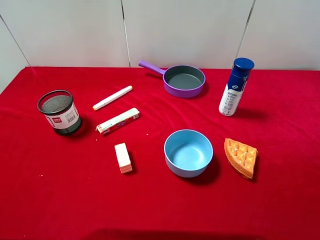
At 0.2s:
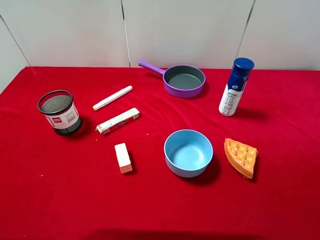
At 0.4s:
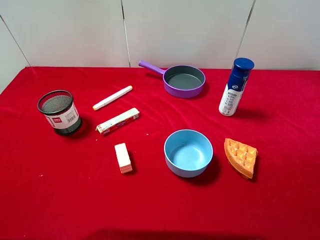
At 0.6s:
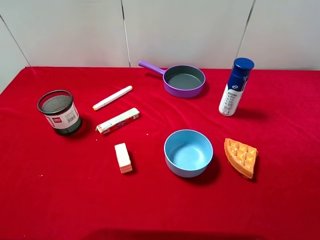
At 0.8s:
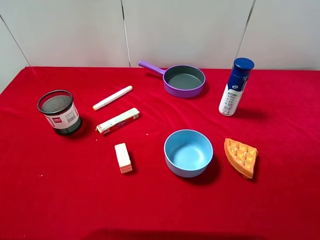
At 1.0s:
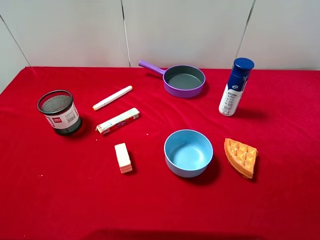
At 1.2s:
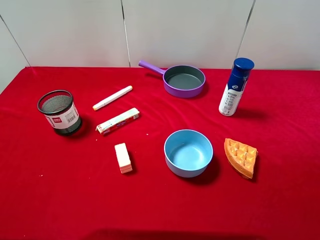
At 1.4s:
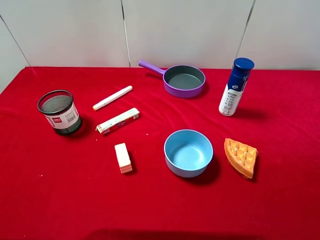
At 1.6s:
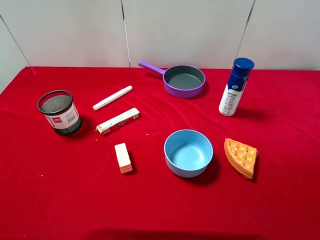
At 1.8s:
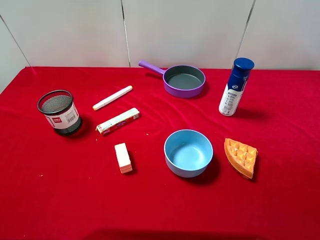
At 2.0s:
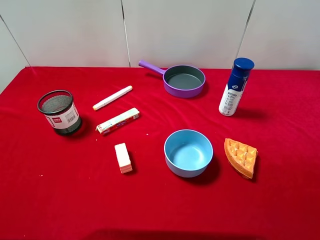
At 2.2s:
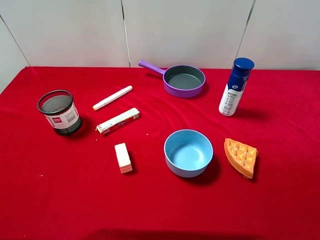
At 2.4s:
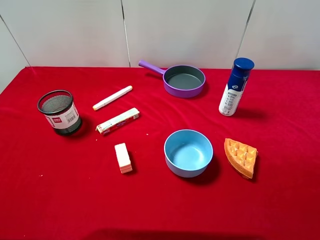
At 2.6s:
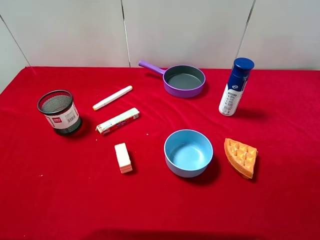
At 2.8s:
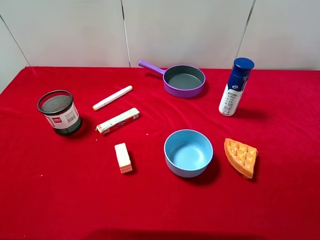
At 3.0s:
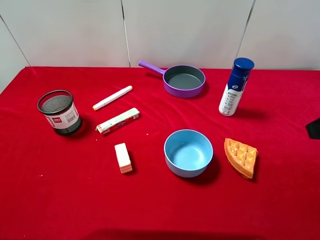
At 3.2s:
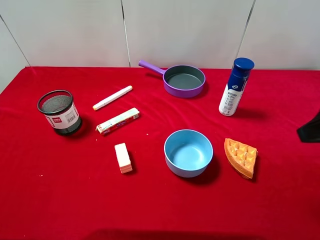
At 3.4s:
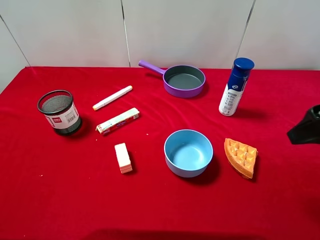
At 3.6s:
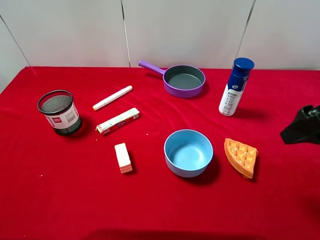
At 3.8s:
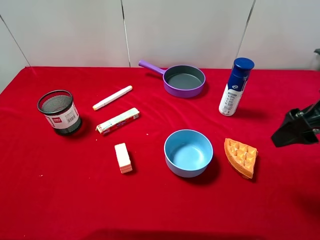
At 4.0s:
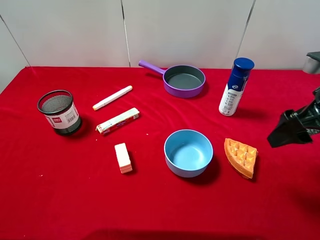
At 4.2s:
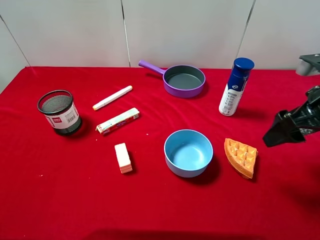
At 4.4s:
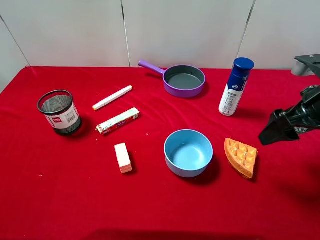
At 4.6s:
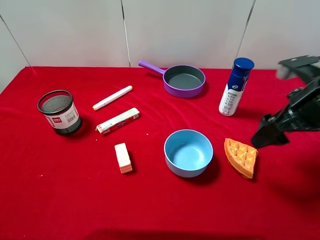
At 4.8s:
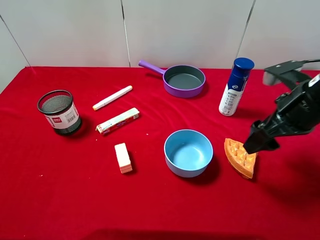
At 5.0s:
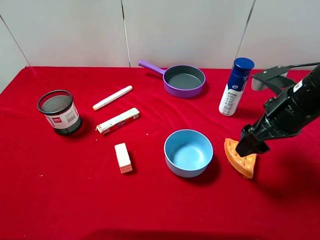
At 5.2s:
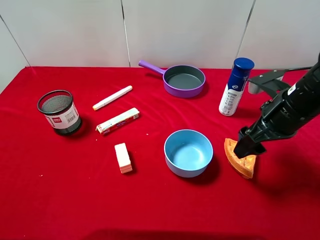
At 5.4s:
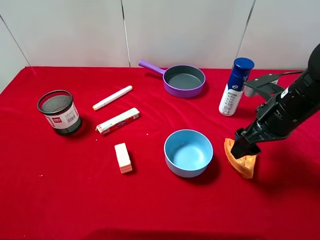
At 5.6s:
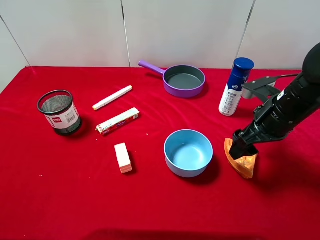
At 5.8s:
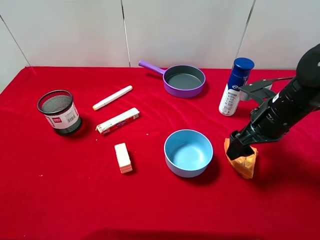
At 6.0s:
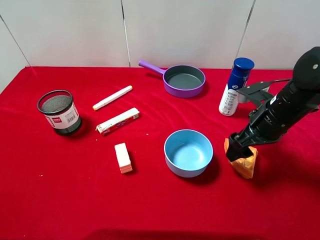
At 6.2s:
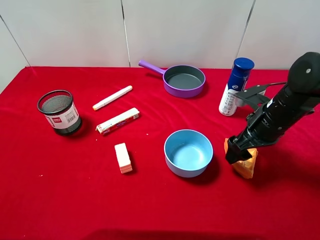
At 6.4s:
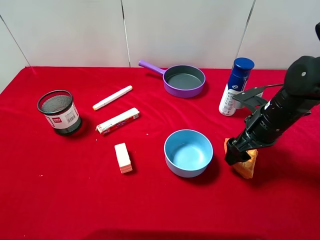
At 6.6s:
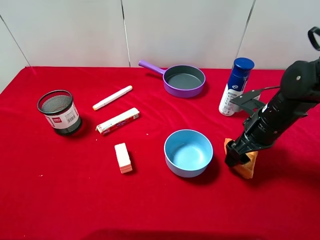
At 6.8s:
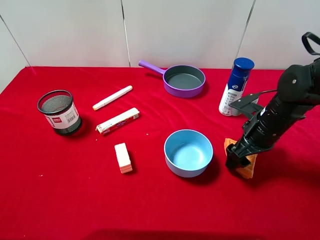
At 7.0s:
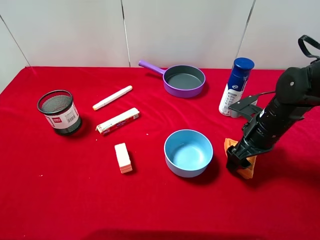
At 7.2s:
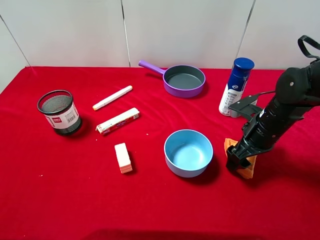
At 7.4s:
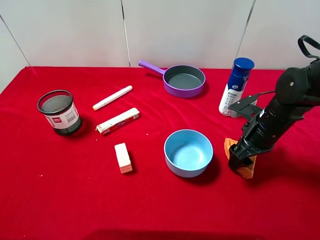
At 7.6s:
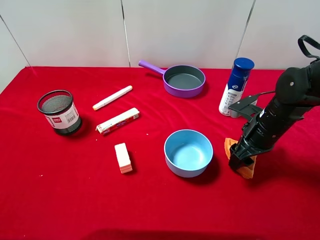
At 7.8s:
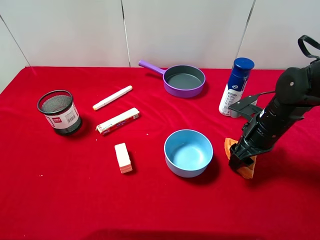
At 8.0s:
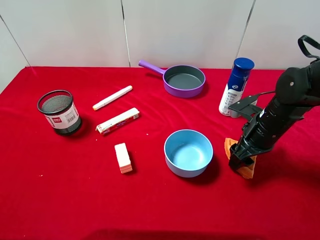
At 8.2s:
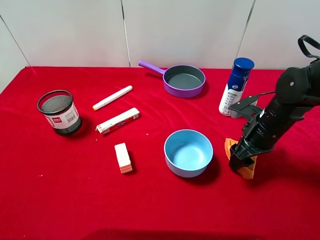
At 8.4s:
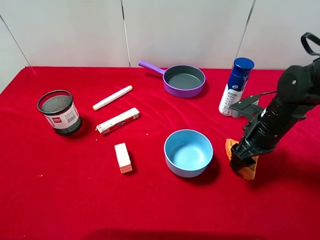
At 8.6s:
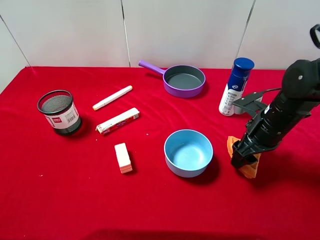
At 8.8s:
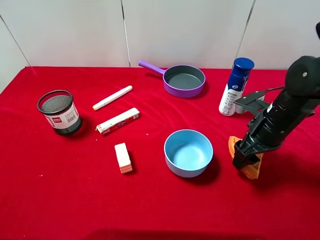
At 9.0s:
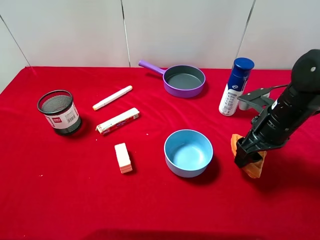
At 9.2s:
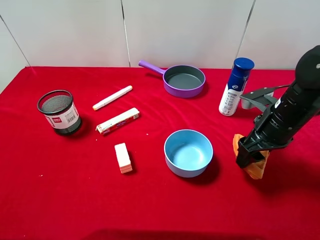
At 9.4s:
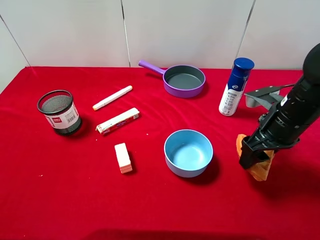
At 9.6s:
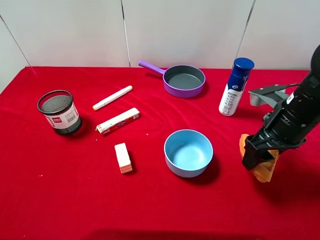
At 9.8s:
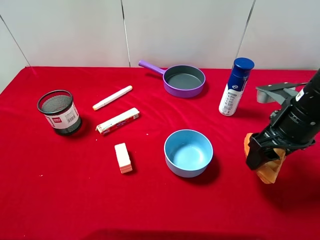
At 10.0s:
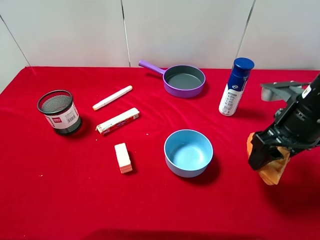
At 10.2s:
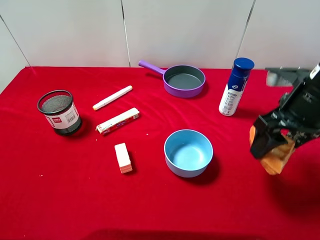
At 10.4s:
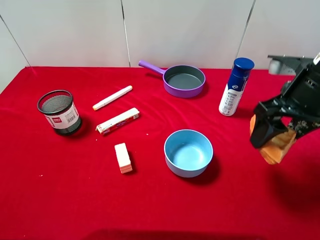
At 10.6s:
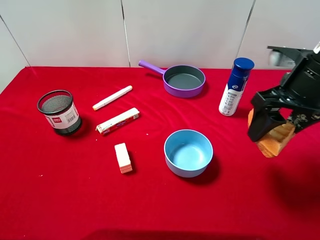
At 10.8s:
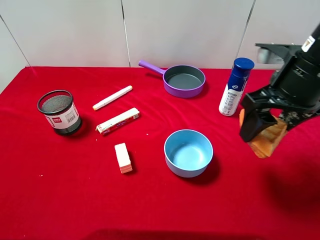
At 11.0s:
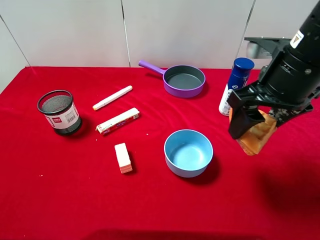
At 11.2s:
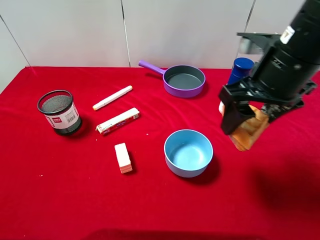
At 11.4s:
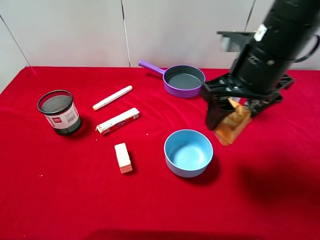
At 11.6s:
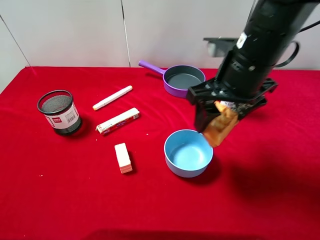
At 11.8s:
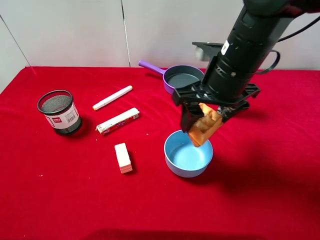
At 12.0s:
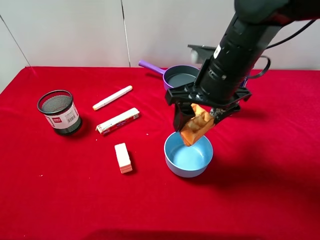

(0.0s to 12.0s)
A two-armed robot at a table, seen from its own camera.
Task of the whole recording: pick up an item with a gripper and place it in a random container on the desktop.
3.0s - 4.4s: The right gripper travels forward and downward by approximately 10 cm.
4.4s - 6.0s: The right gripper moves downward, roughly 10 cm.
6.0s - 7.6s: The right gripper closes.
7.6s - 9.0s: The grippers move only a little.
9.0s - 10.4s: The right gripper travels upward by roughly 10 cm.
10.4s - 12.0s: The right gripper shifts roughly 15 cm to the left.

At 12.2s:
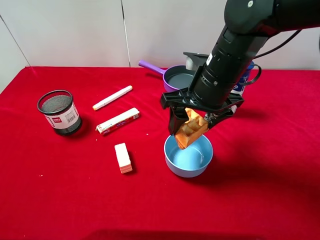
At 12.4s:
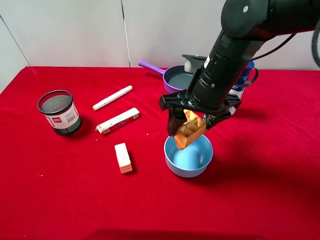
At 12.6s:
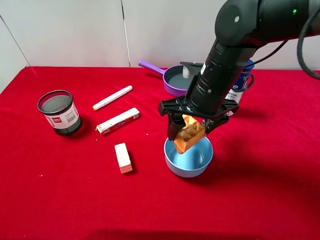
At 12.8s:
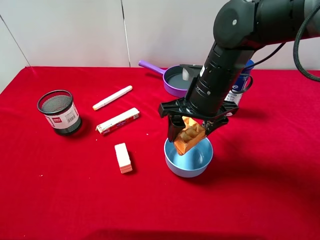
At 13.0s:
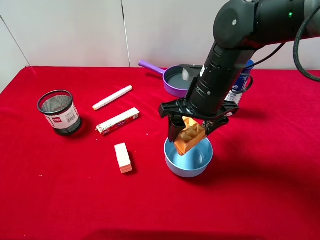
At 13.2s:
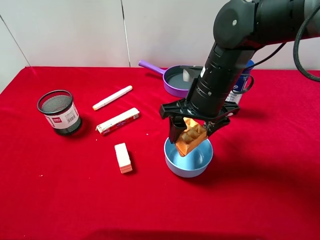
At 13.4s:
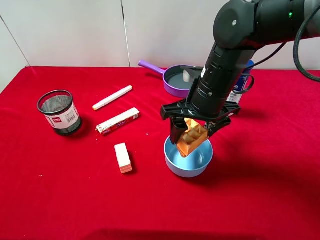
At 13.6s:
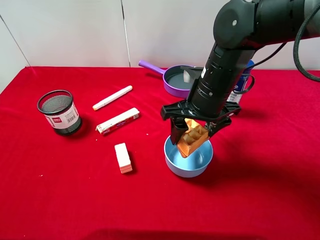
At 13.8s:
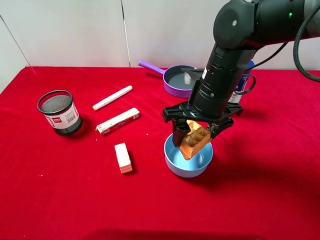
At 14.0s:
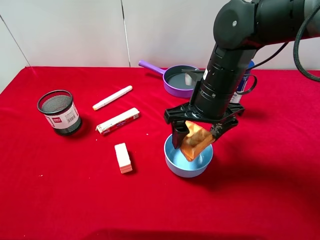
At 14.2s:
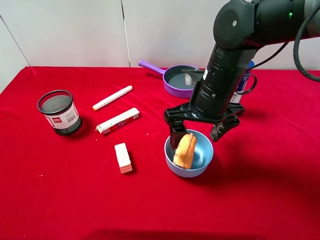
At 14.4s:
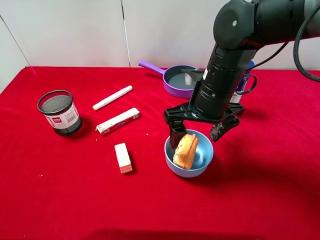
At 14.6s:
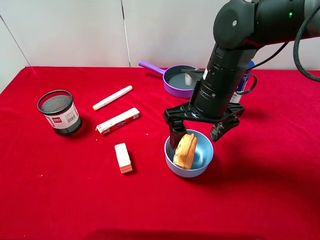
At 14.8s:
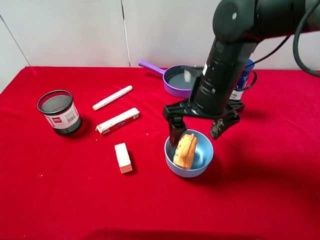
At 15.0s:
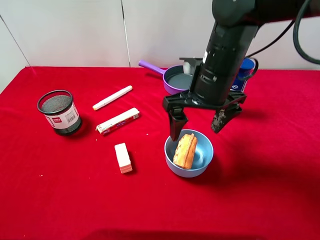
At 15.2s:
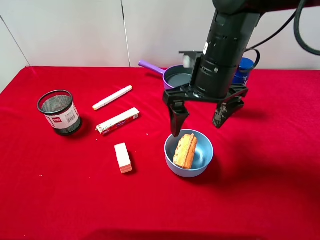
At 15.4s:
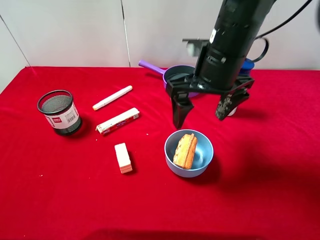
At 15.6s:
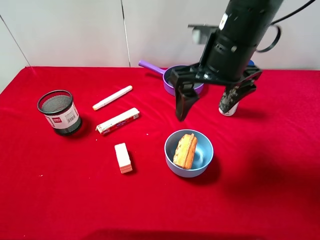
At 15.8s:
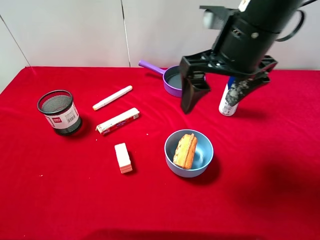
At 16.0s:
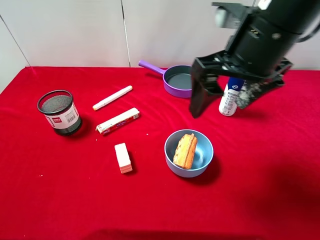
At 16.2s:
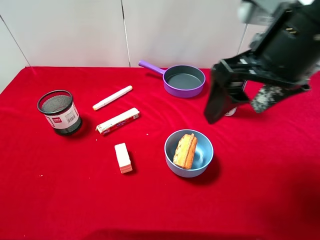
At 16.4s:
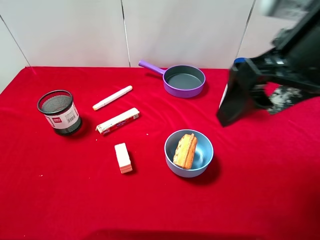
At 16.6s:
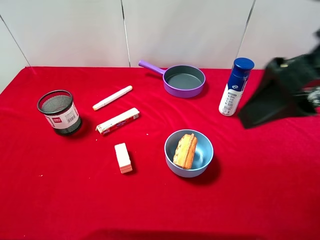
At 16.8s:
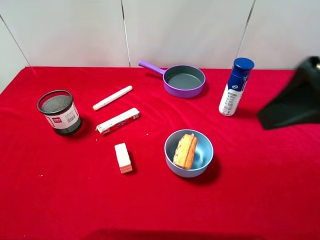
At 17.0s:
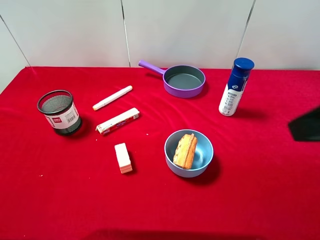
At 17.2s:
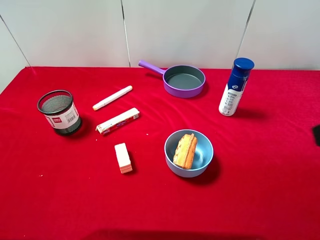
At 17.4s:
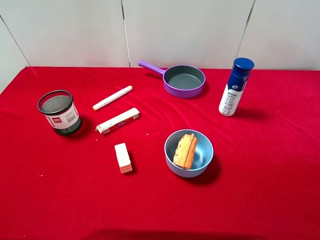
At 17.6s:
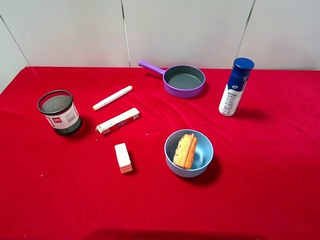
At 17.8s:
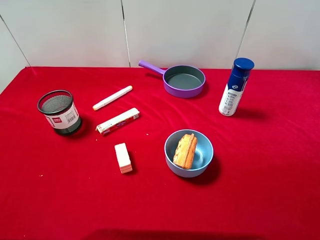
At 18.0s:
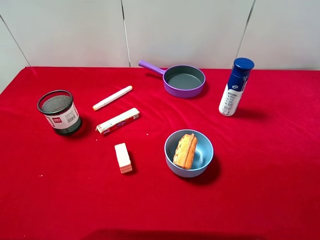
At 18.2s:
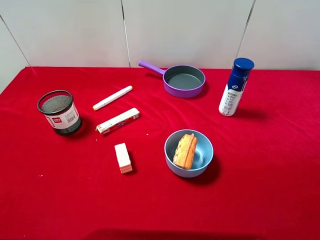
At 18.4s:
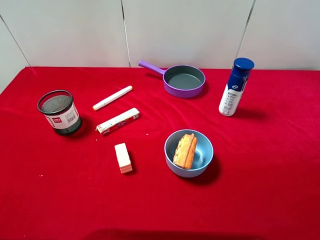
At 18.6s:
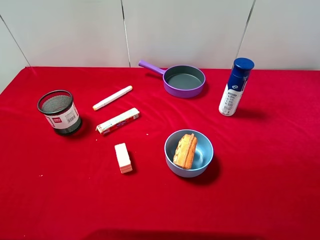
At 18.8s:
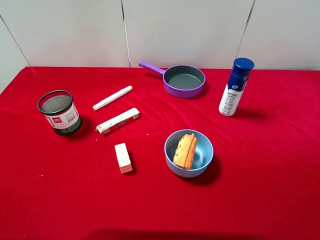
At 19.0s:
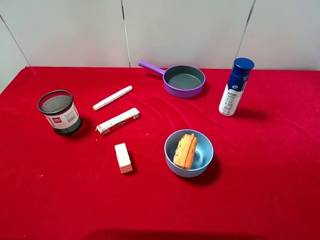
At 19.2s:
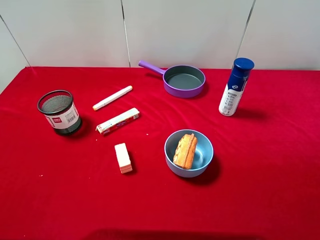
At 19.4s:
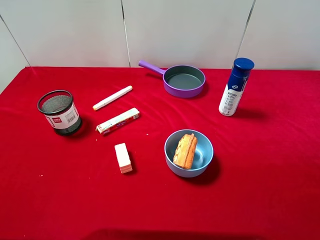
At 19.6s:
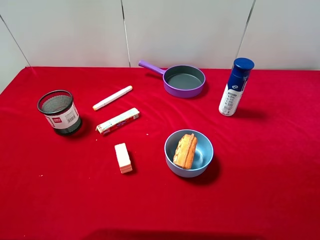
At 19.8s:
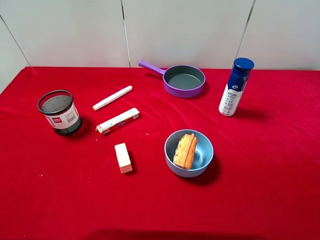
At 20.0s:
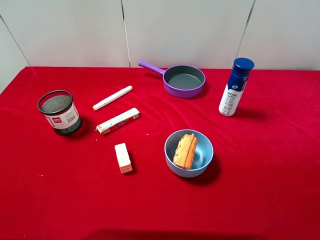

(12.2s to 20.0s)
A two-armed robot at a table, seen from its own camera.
Task of the whole recording: pick up an item with a gripper and place it in a random container on the desktop.
12.2s - 13.8s: The grippers stay close to where they were, moving slightly.
13.8s - 15.4s: The right gripper moves upward, some 5 cm, and opens up.
15.4s - 16.8s: The right gripper shifts roughly 20 cm backward, to the right and upward.
16.8s - 18.4s: The right gripper travels backward, to the right and downward by approximately 15 cm.
18.4s - 20.0s: Both grippers stay about where they are.
